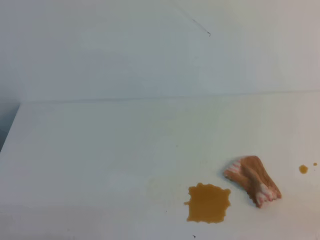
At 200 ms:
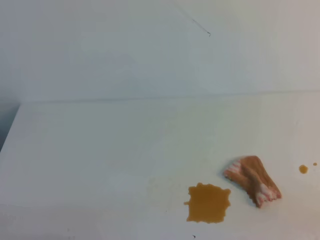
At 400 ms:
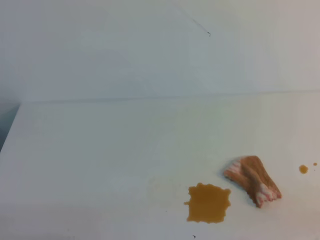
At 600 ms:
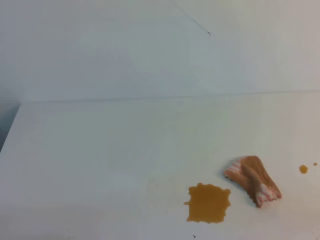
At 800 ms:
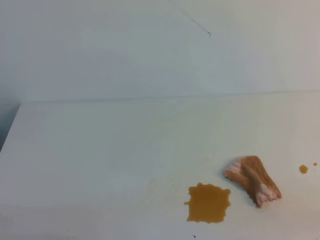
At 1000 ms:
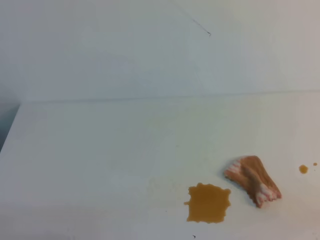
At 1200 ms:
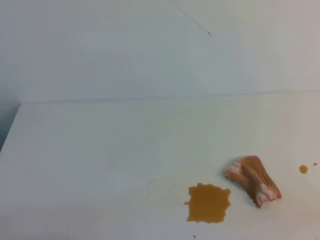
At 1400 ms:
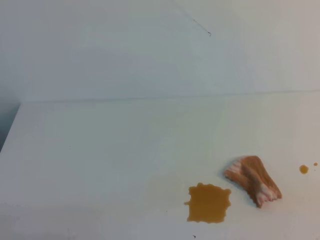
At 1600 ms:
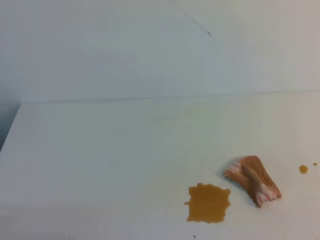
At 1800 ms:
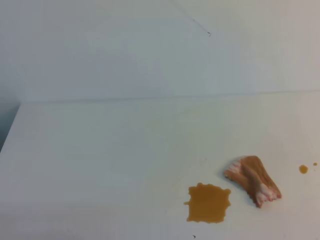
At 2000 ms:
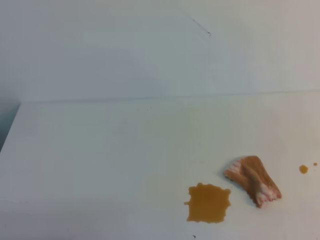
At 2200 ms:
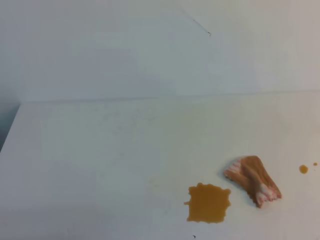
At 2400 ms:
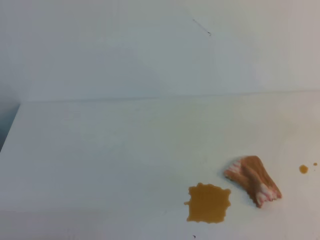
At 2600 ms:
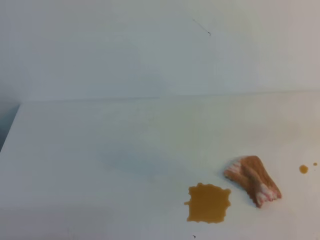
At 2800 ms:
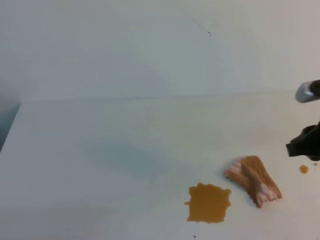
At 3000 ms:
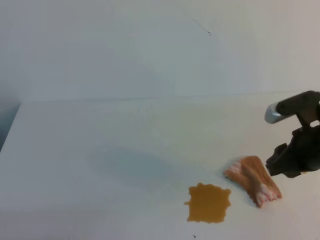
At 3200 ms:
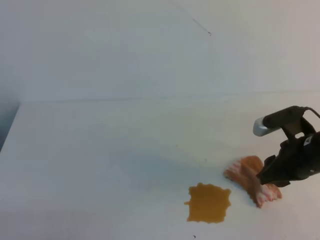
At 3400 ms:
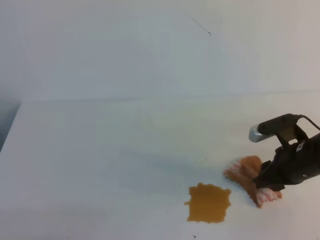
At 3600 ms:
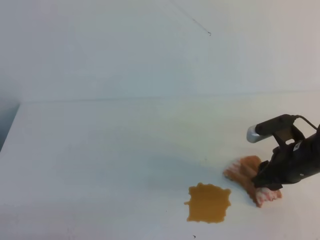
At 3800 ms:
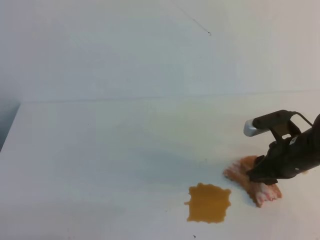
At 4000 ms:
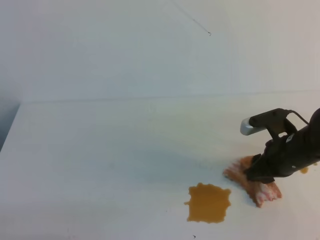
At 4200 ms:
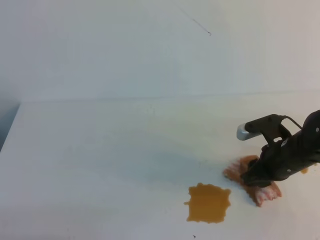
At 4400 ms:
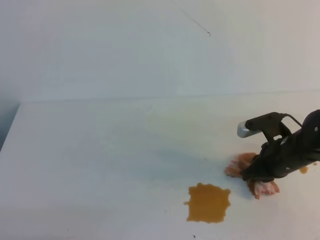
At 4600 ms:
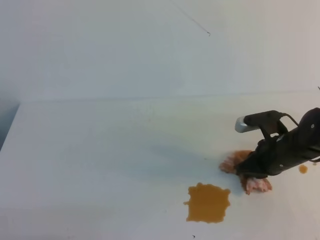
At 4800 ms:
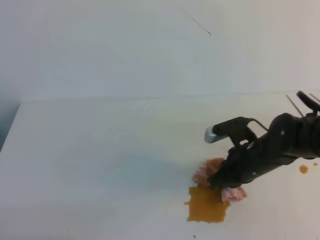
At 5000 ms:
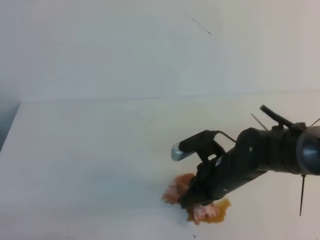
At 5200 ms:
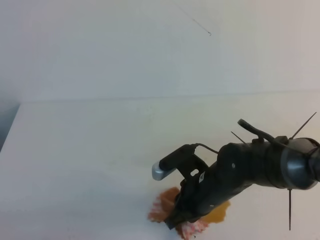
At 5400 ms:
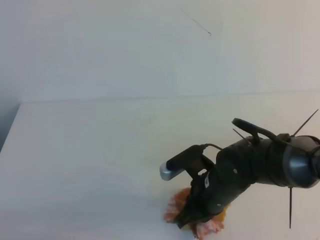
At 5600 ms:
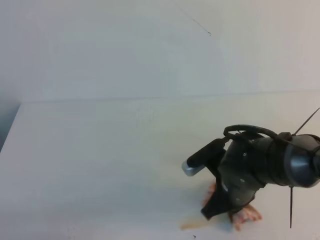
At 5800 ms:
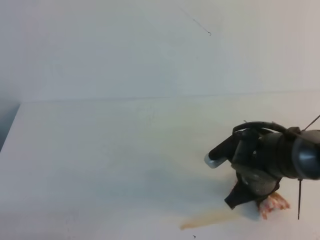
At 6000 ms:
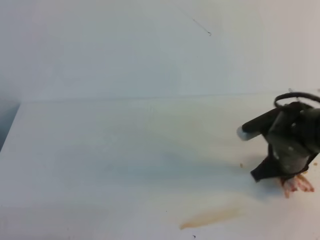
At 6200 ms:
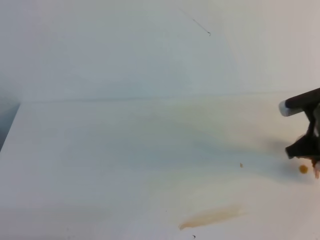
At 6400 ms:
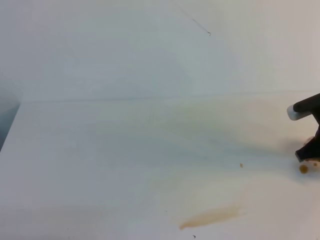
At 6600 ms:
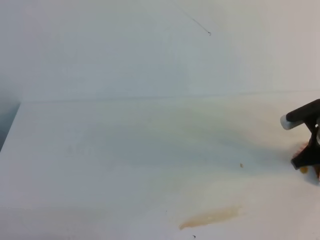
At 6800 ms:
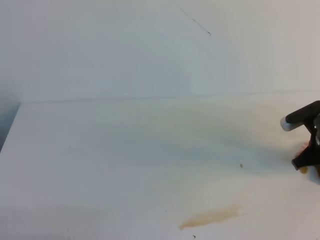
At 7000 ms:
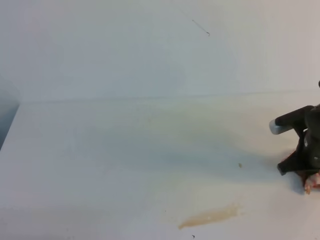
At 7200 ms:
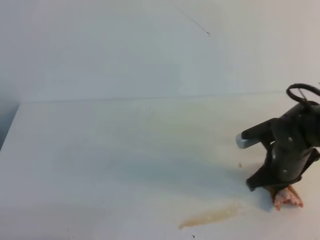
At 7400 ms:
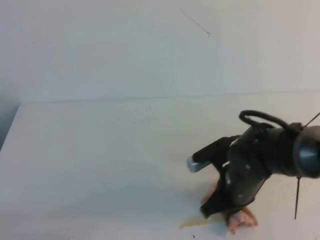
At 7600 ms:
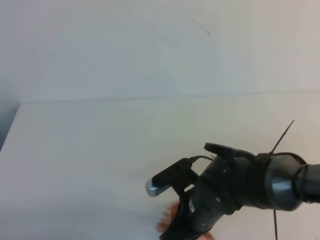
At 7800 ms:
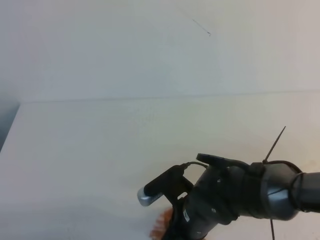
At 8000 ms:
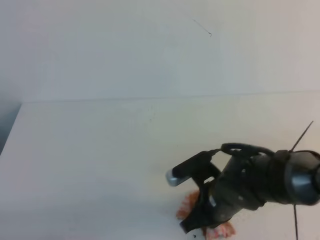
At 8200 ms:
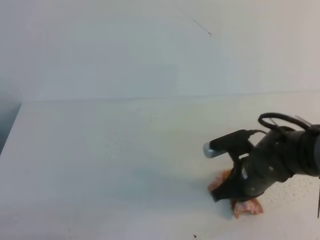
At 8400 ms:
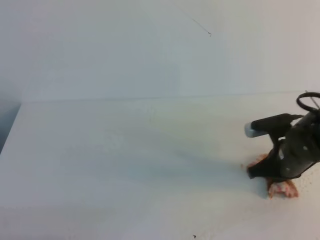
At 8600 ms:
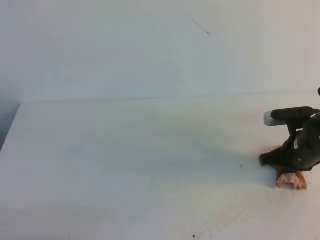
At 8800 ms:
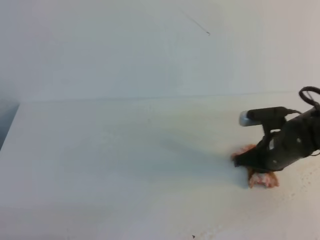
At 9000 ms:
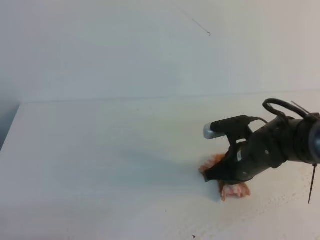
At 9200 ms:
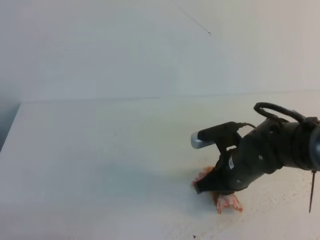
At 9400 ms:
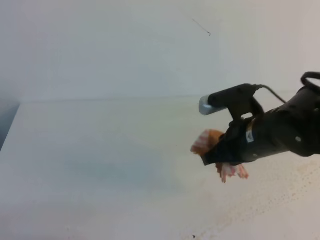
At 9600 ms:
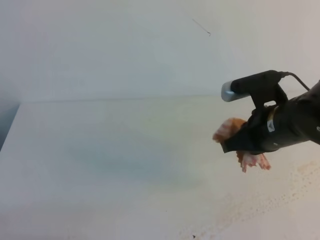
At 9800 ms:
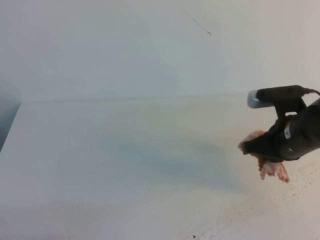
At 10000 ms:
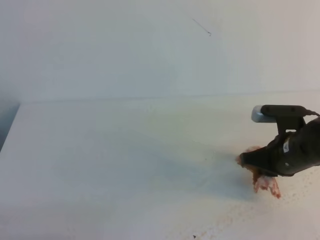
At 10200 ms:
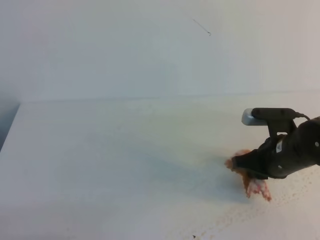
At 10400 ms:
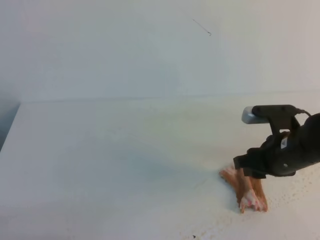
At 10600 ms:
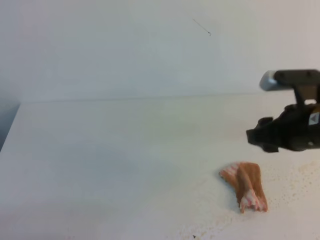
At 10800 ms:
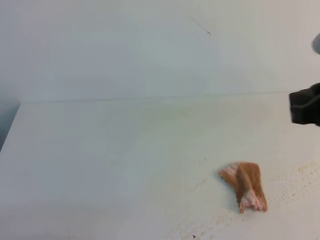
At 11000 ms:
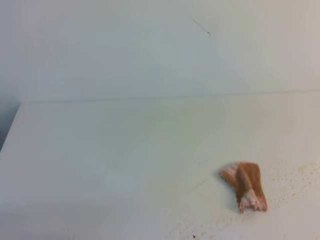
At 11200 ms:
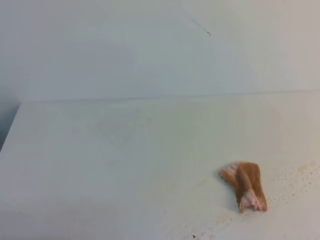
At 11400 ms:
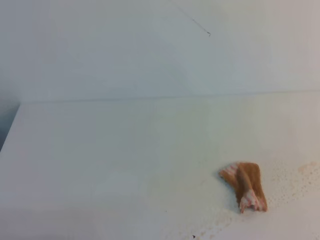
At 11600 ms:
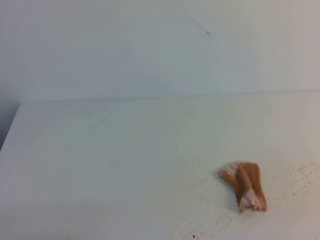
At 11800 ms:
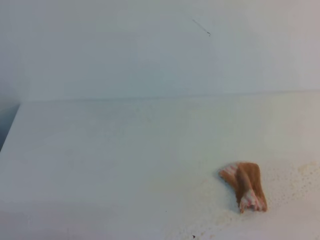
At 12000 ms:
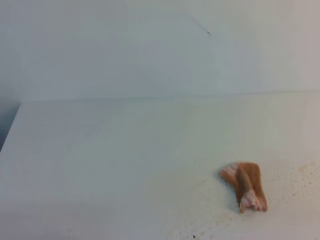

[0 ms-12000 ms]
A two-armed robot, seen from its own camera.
1600 ms to 3000 ms: The right gripper travels forward by approximately 25 cm, and opens up.
3000 ms to 4400 ms: The right gripper travels downward by roughly 10 cm.
4400 ms to 6000 ms: The right gripper goes to the left and returns, about 15 cm each way, and closes up.
6000 ms to 7600 ms: The right gripper heads to the left and backward, covering approximately 15 cm.
7600 ms to 9000 ms: The right gripper is displaced to the right and forward by some 10 cm.
9000 ms to 10400 ms: The right gripper shifts roughly 5 cm upward, and opens its fingers.
10400 ms to 12000 ms: The right gripper is displaced backward and to the right by approximately 30 cm, and closes up.

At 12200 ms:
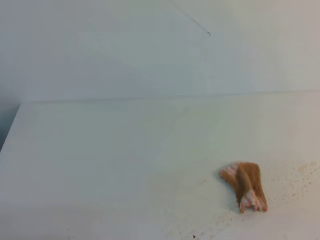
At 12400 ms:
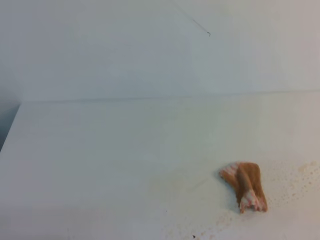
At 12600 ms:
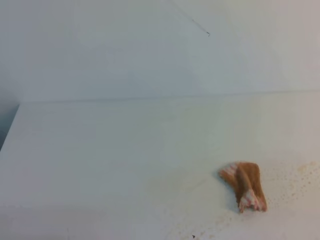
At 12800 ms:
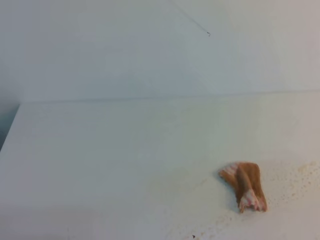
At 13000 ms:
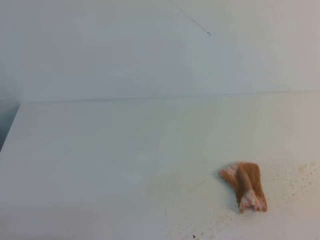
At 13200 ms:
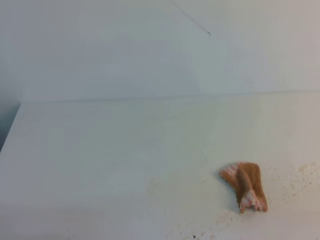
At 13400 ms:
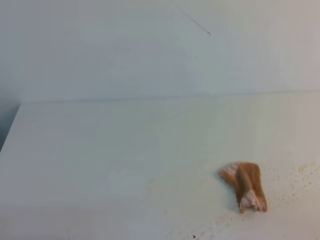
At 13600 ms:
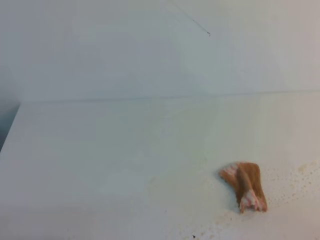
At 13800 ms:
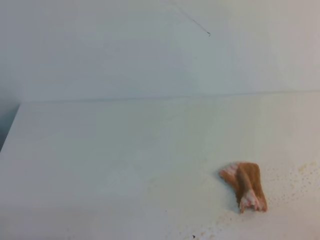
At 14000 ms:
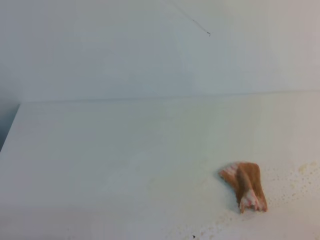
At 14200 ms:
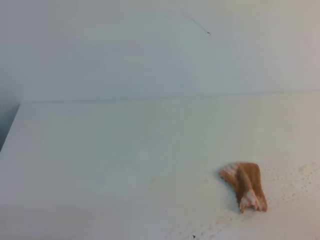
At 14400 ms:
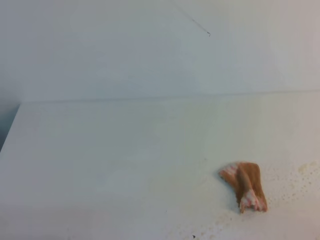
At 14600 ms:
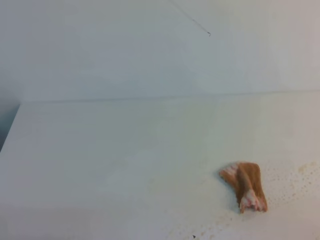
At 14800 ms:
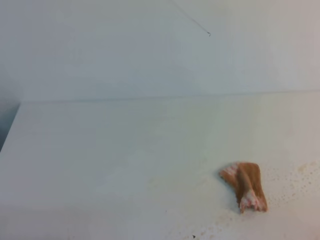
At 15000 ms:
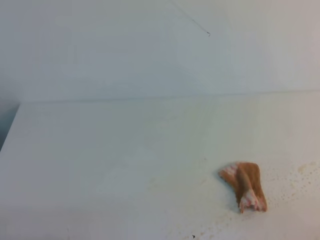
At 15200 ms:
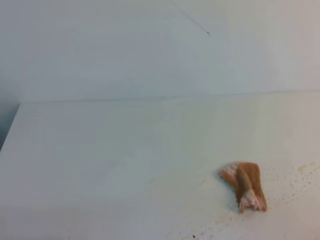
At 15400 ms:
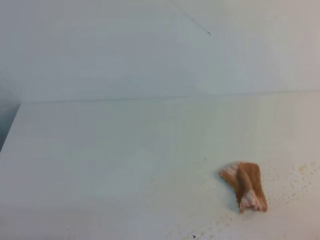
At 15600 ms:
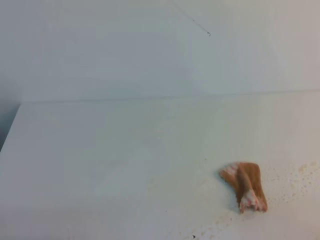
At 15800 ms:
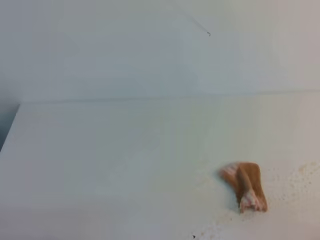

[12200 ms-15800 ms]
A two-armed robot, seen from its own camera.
14000 ms to 15800 ms: Both grippers stay put.
